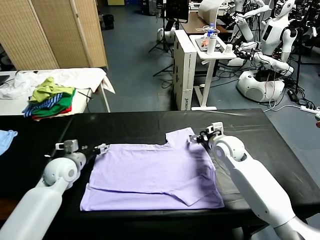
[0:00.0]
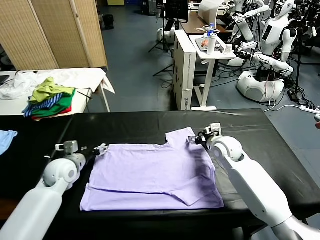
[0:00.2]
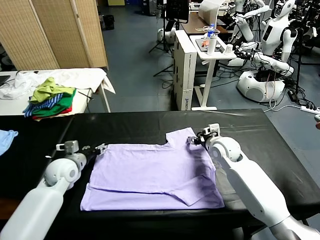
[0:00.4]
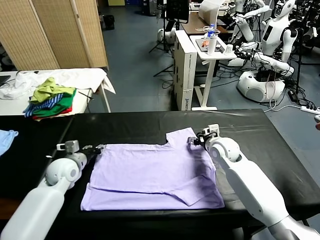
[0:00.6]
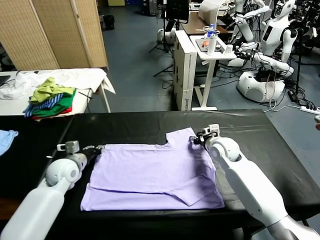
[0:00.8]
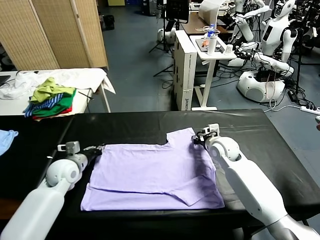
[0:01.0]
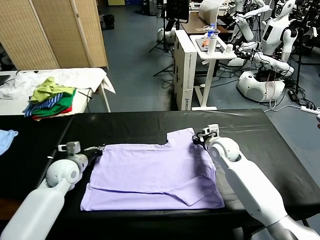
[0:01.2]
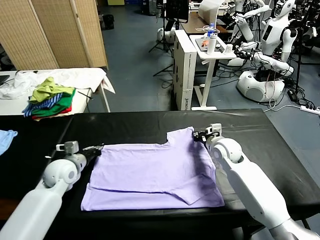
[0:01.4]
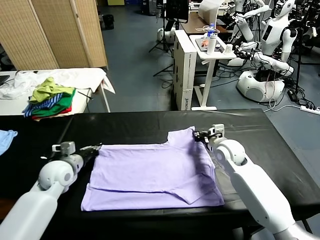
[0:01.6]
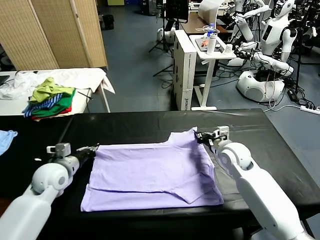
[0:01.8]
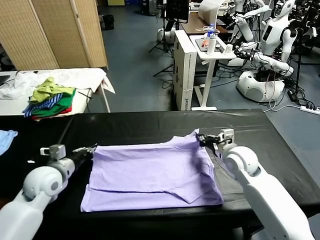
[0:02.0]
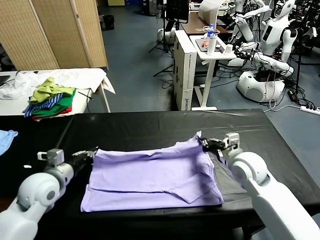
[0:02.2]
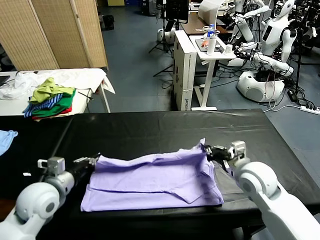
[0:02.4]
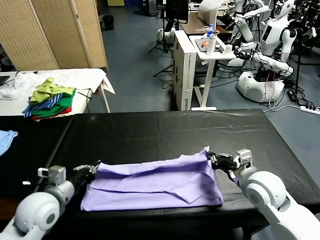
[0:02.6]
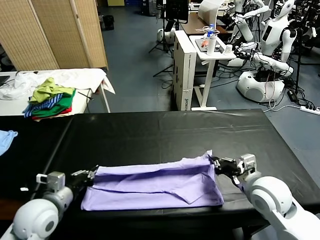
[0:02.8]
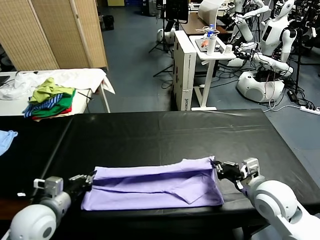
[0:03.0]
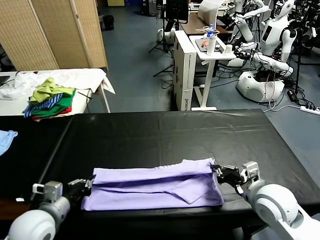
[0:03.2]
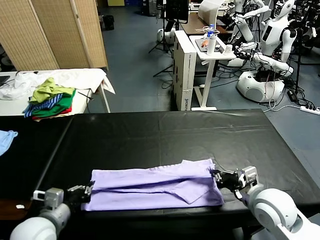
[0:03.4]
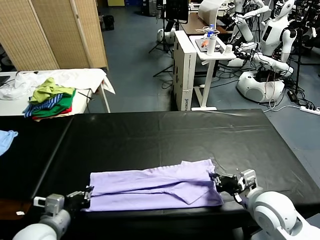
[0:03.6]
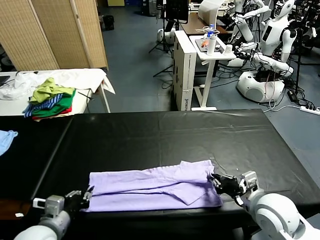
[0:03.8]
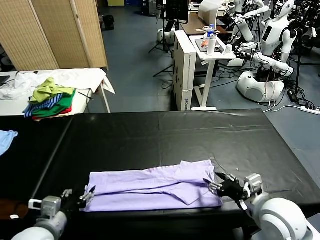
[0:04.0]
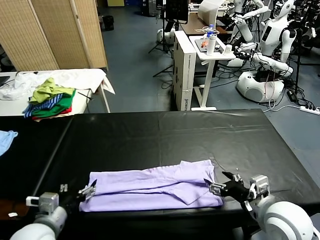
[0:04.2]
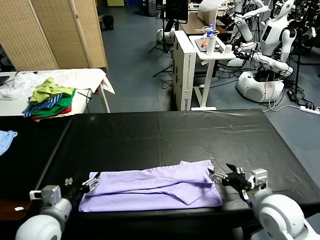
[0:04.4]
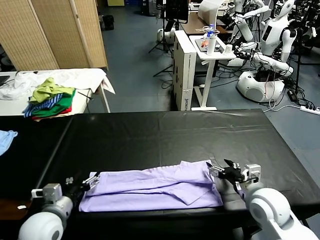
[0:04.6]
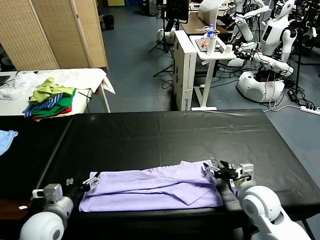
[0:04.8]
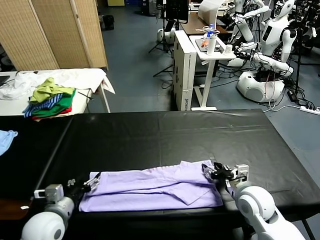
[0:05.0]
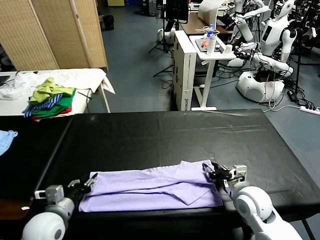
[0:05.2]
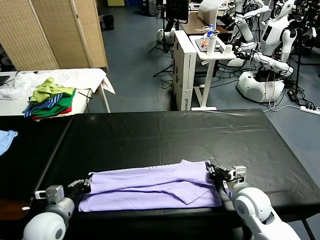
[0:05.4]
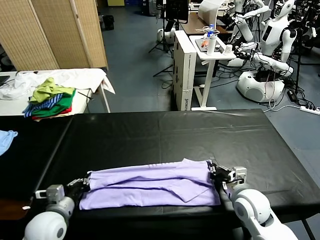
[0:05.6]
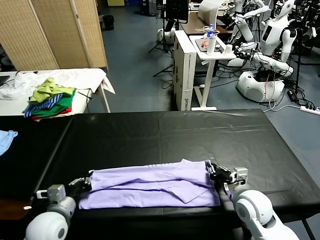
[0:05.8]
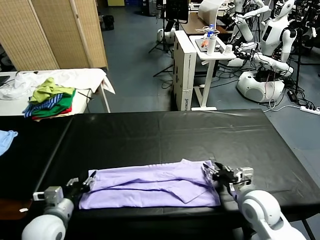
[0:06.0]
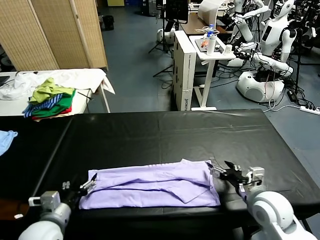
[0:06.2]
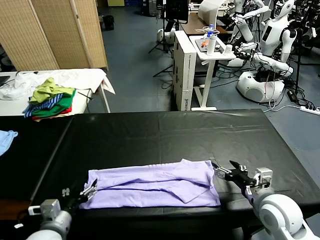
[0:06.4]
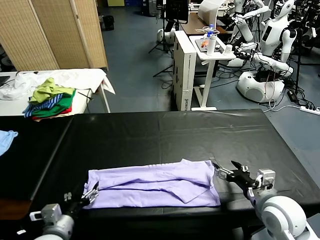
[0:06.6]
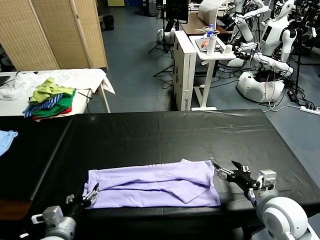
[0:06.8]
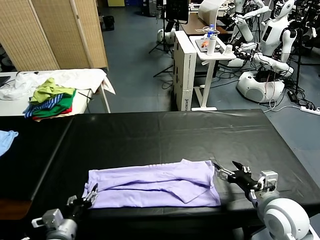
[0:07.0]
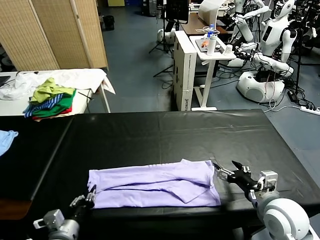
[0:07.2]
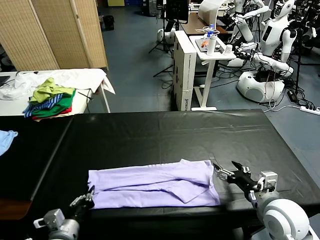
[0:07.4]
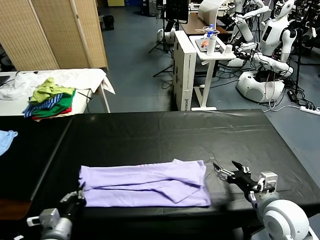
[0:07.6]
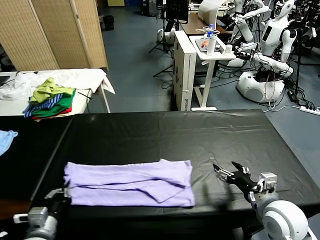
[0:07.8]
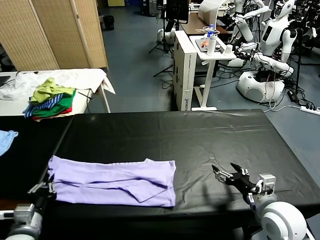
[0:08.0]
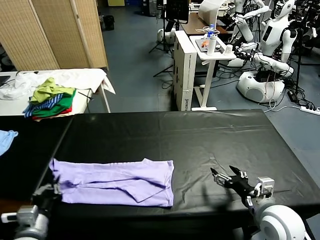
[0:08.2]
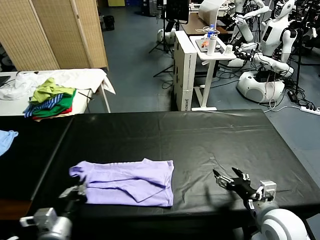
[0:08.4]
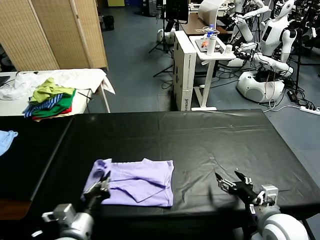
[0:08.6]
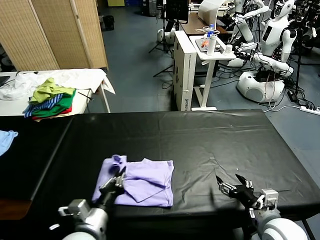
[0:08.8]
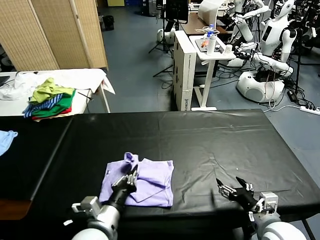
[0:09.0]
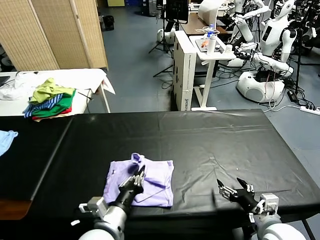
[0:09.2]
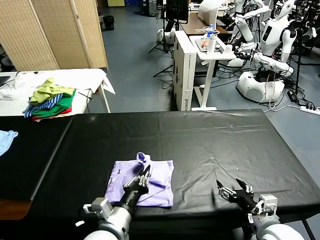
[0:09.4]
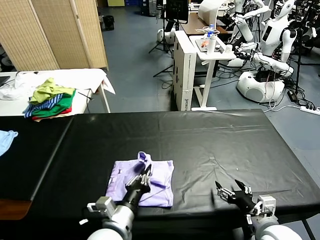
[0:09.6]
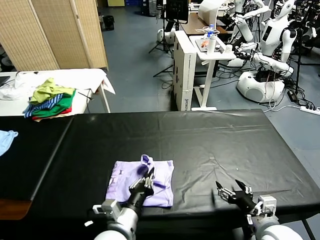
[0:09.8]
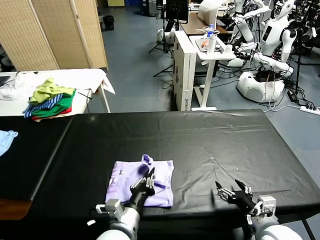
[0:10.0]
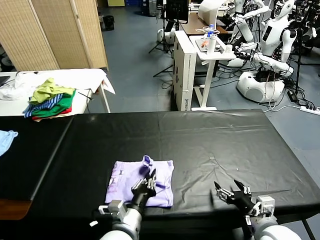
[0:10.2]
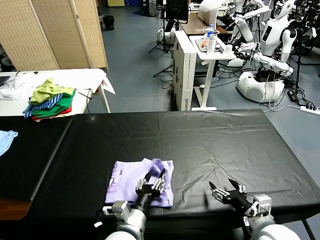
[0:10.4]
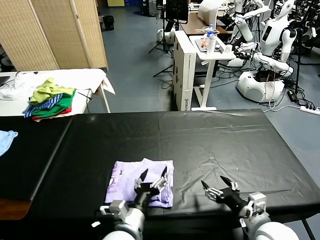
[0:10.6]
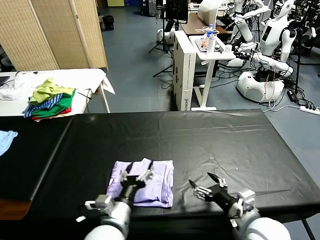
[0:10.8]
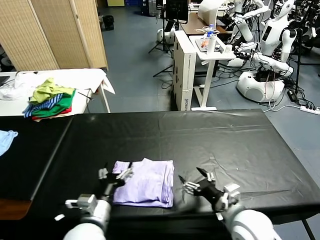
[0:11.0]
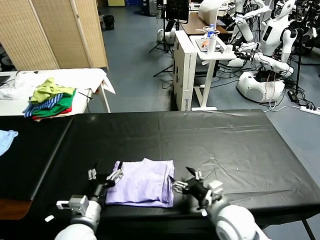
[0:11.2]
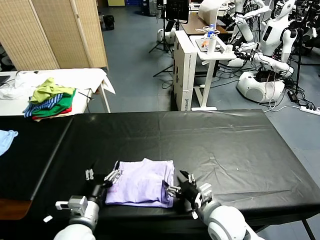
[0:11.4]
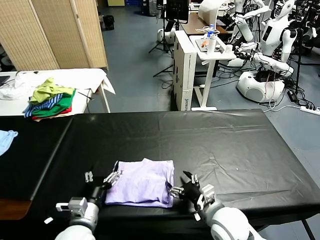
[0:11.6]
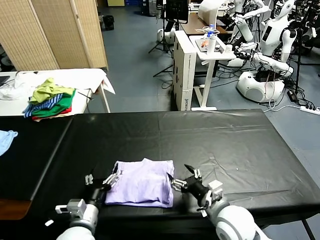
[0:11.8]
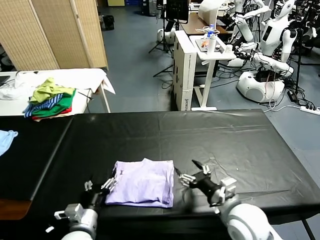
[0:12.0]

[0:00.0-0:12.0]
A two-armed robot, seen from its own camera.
Task of the whole recording: fold and organize the clothes.
Step, 0.0 to 1.2 s: use both grippers simultaneously to clamp the upper edge of the clothing fabric.
Step, 1.4 to 4.0 s: use both grippers to drag the upper edge of the fabric backward and fold it over the lower edge.
Step, 4.2 to 7.2 s: use the left gripper to clamp the left edge of the fabric.
Step, 7.4 to 10.6 s: use the left gripper to drag the left edge of the fabric to the left and folds it over the right edge.
0.0 to 1.6 s: The right gripper closes its fingers, while the left gripper closes up.
1.6 to 3.0 s: The two grippers go roughly 15 cm backward.
3.0 to 4.4 s: Both grippers move backward, about 5 cm. The left gripper opens its fingers. The right gripper opens.
4.4 to 6.0 s: The left gripper goes roughly 5 cm downward, and closes its fingers. Meanwhile the right gripper heads downward and forward, covering roughly 10 cm, and closes up.
6.0 to 7.6 s: The left gripper travels backward by some 5 cm, and opens, then closes once more, while the right gripper travels upward by roughly 5 cm, and opens its fingers.
7.6 to 9.0 s: The left gripper is displaced to the right and upward by about 10 cm. Meanwhile the right gripper ends up about 5 cm from where it was.
9.0 to 10.4 s: The left gripper travels to the right by about 10 cm.
10.4 to 12.0 s: Both grippers travel together to the left, some 10 cm. The left gripper opens.

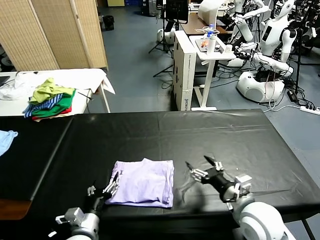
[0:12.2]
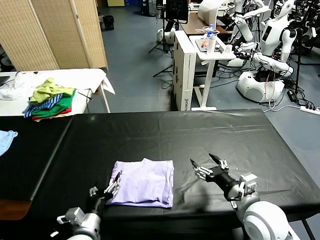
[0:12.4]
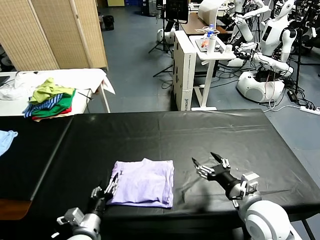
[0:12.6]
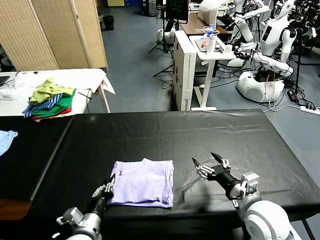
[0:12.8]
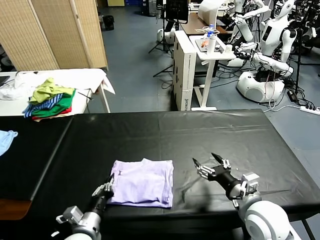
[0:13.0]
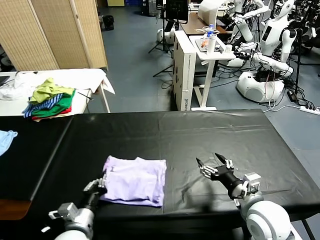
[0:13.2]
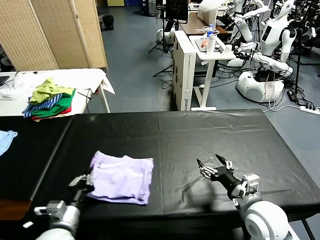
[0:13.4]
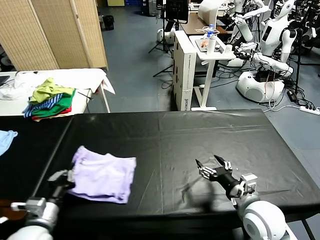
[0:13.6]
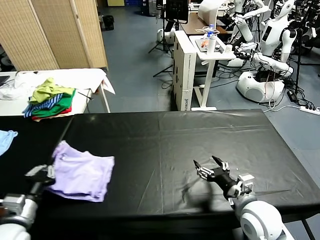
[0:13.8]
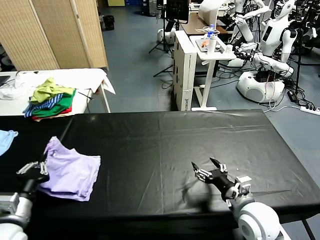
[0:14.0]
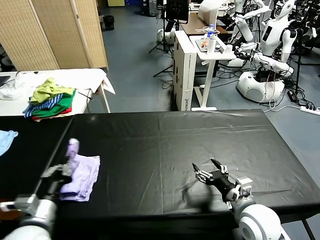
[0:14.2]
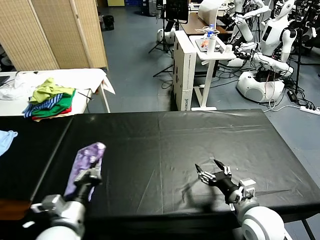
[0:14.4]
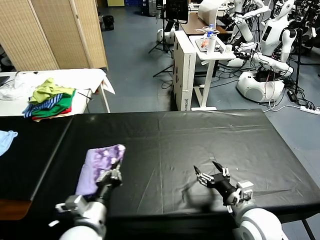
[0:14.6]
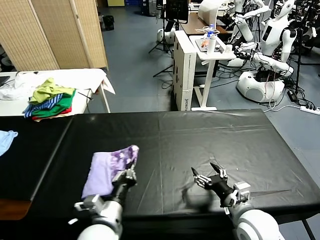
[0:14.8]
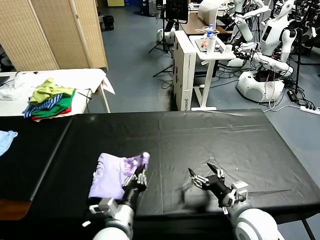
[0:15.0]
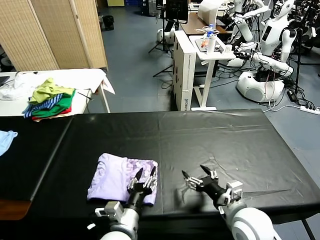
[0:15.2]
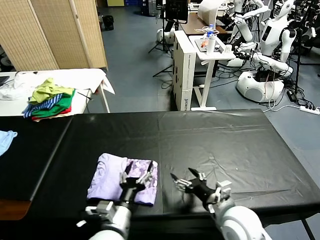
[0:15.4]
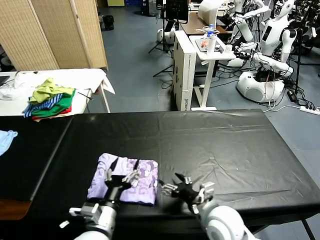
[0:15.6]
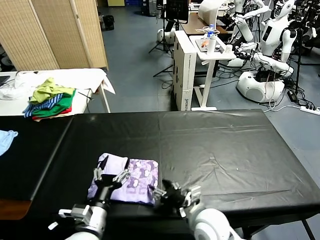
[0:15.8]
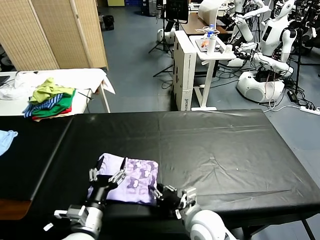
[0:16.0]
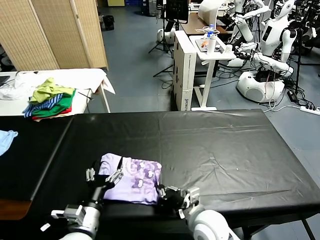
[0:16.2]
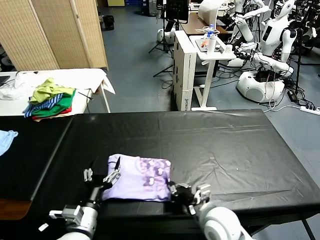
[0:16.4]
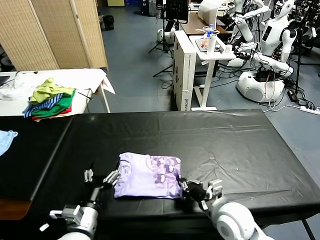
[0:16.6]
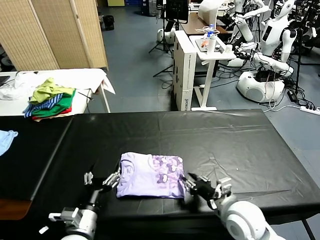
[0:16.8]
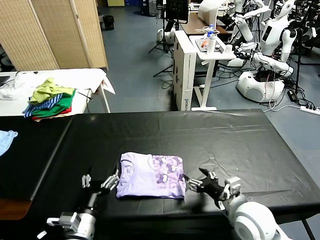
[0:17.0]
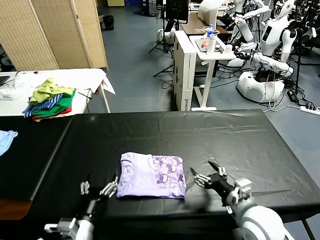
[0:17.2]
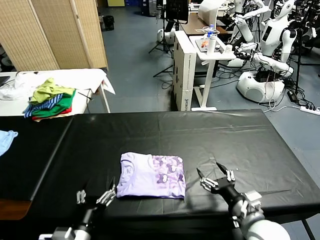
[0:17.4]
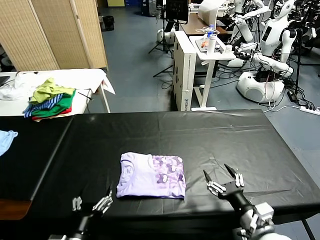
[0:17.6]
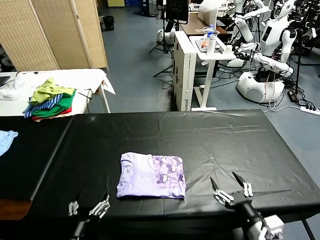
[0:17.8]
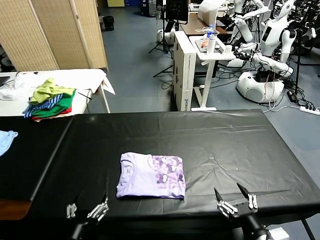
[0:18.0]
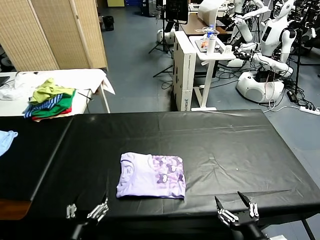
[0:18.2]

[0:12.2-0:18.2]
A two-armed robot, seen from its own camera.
Task of the whole recording: fold and organize the clothes.
Step, 12.2 to 15.2 s: Flip the folded clothes over with left gripper.
Step, 15.4 to 16.8 s: Drag the clothes to the center of the table.
12.2 to 13.8 s: The left gripper travels to the left and upward by about 15 cm, and closes up.
13.8 to 15.2 s: The left gripper shifts approximately 25 cm to the right, and opens up.
15.2 to 16.6 s: The right gripper goes about 5 cm to the left, and closes up. The left gripper goes about 10 cm to the left, and opens.
16.6 to 18.2 s: The right gripper moves backward and to the right, roughly 20 cm, and opens up; the left gripper shifts some 10 cm backward.

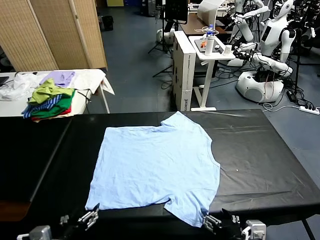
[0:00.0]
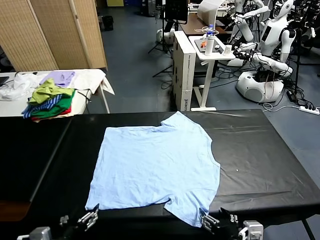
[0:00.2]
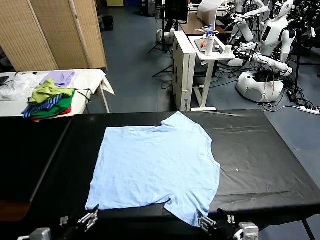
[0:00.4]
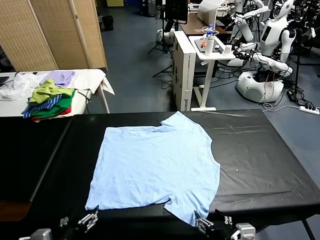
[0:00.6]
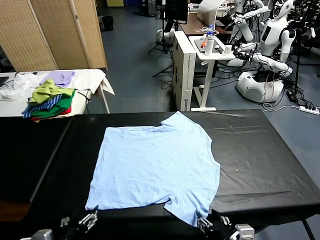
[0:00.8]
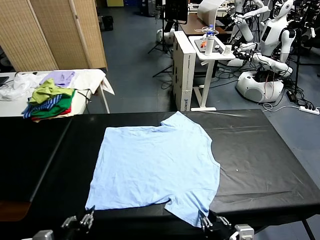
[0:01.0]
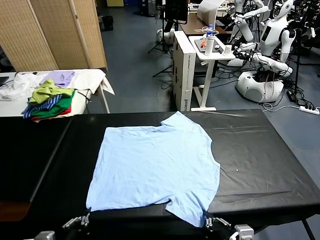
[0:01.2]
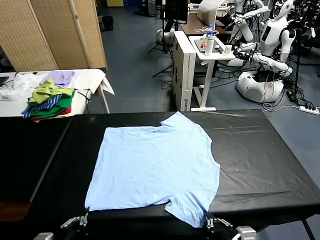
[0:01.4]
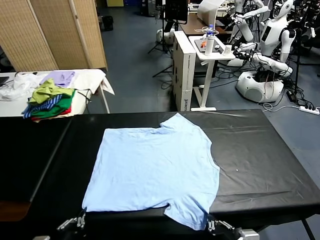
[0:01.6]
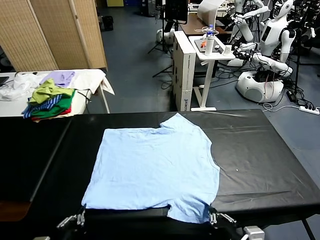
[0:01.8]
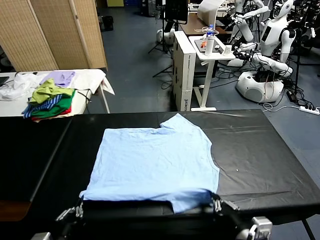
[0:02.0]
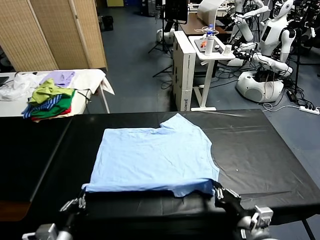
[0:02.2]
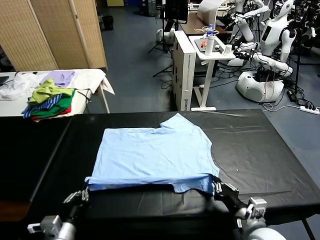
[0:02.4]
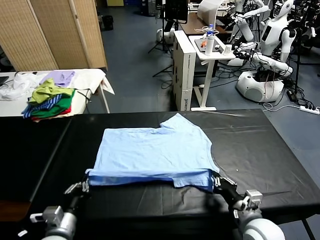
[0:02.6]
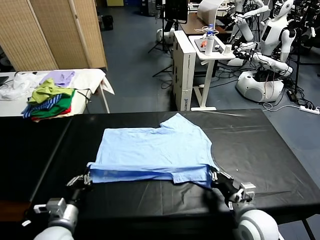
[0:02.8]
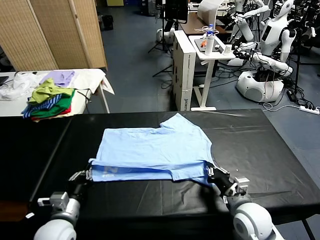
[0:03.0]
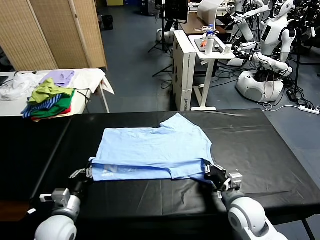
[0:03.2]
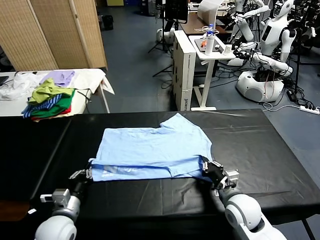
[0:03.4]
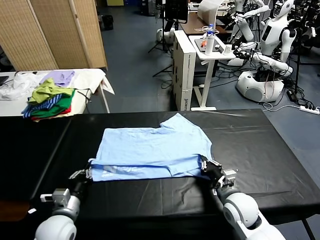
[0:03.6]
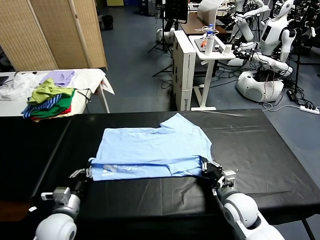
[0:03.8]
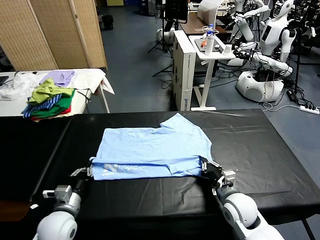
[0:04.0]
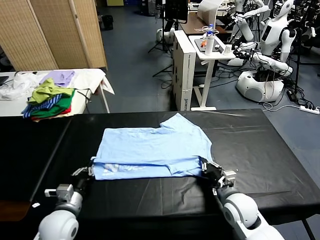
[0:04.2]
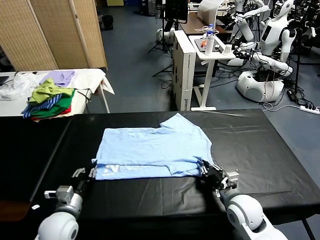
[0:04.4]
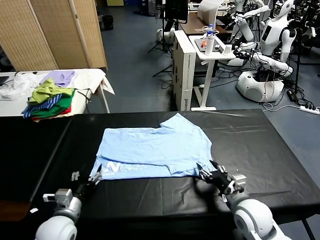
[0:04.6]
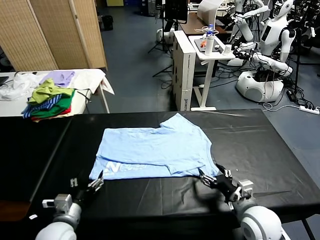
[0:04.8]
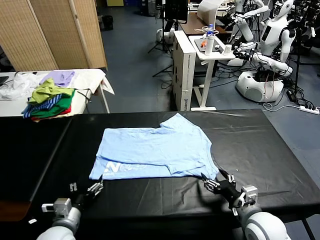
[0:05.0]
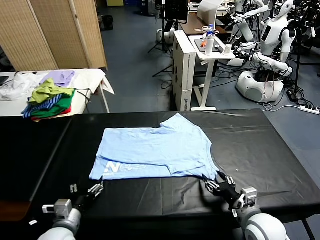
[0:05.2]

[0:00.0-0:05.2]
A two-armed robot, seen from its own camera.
Task of the whole recording: fold and organize the clothes.
Step, 0.0 to 1.6 s: use both grippers simultaneously to clamp the lower edge of the clothing fabric.
Step, 1.8 to 4.4 s: use both grippers to drag the lower edge of the fabric forward and fold it over the upper edge.
1.8 to 3.4 s: The left gripper is displaced forward by some 15 cm. The right gripper shifts some 15 cm forward and downward.
3.4 to 5.2 s: The left gripper opens. Meanwhile the right gripper goes roughly 5 cm backward, and opens, then closes once more.
